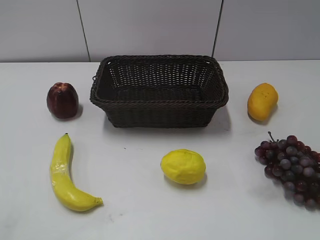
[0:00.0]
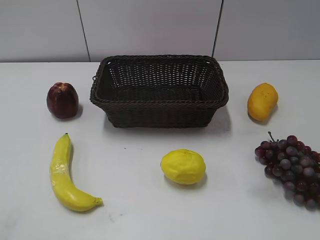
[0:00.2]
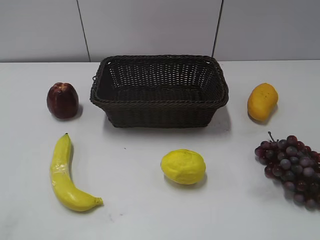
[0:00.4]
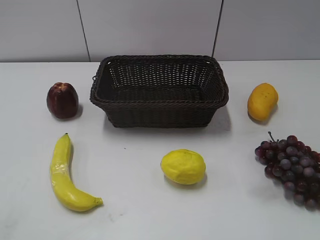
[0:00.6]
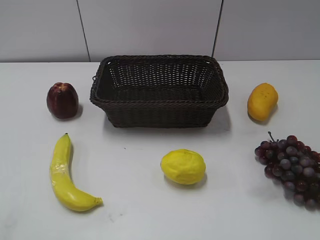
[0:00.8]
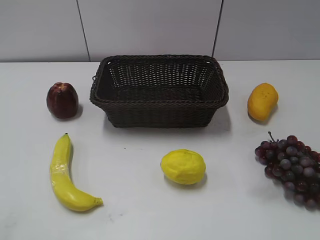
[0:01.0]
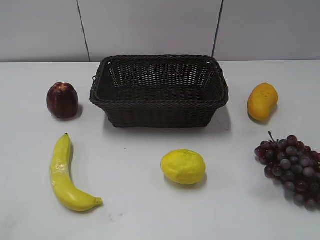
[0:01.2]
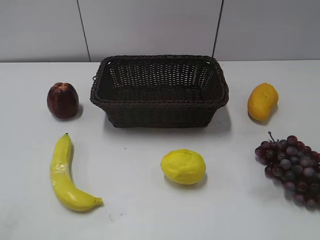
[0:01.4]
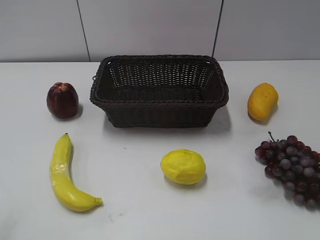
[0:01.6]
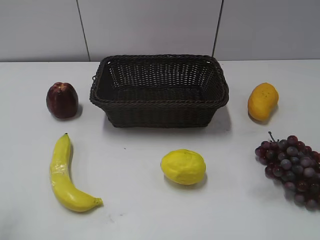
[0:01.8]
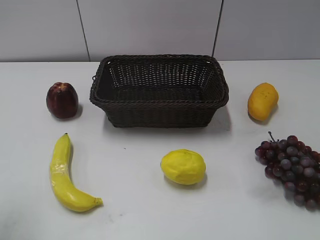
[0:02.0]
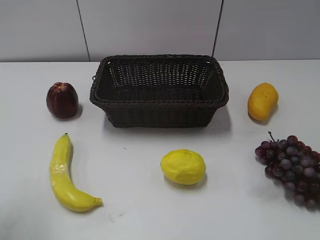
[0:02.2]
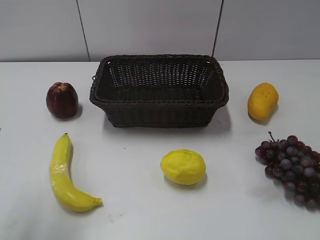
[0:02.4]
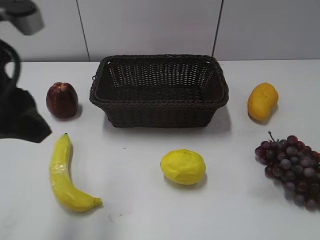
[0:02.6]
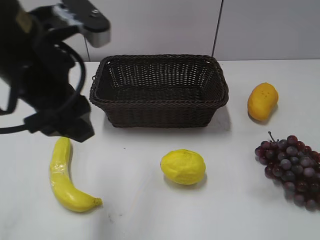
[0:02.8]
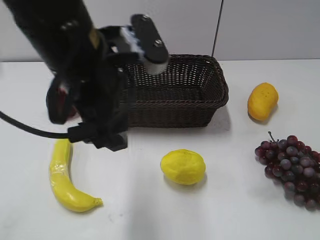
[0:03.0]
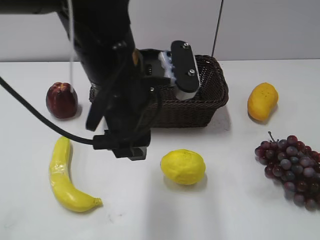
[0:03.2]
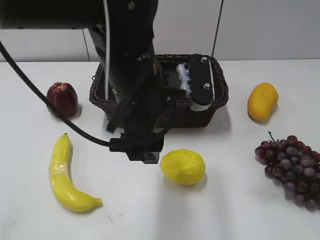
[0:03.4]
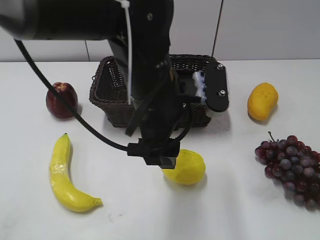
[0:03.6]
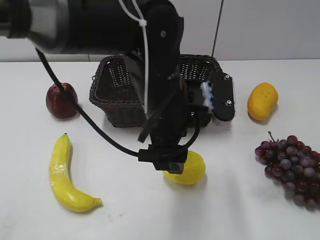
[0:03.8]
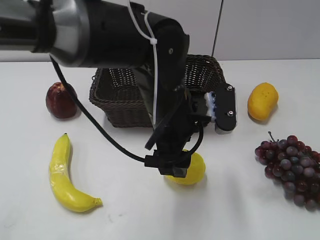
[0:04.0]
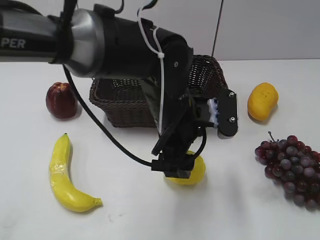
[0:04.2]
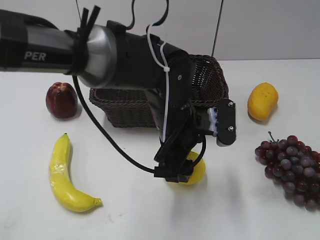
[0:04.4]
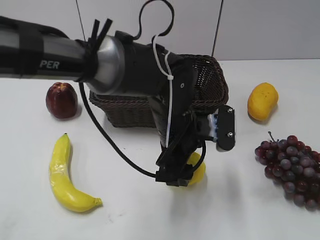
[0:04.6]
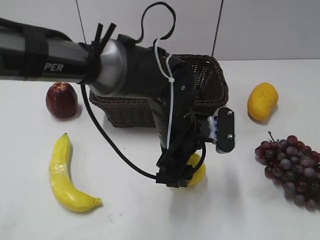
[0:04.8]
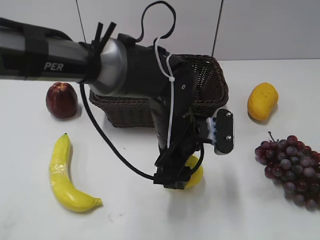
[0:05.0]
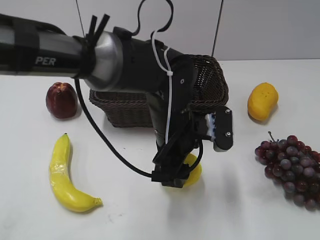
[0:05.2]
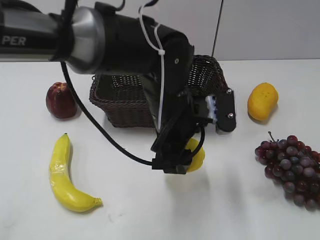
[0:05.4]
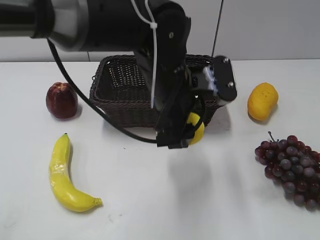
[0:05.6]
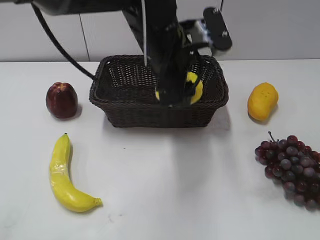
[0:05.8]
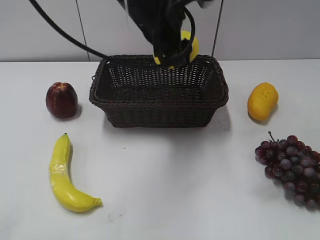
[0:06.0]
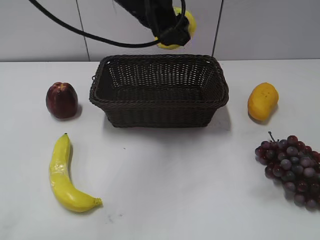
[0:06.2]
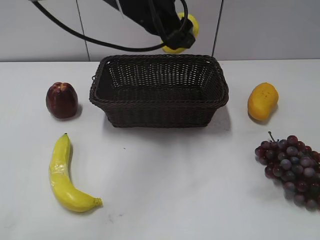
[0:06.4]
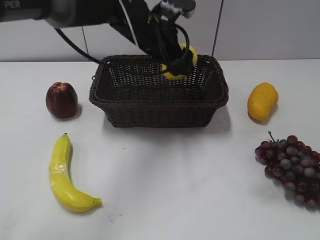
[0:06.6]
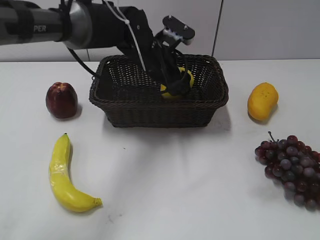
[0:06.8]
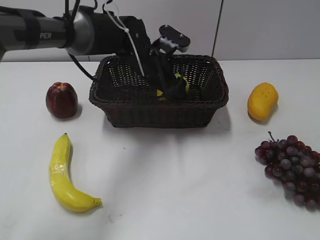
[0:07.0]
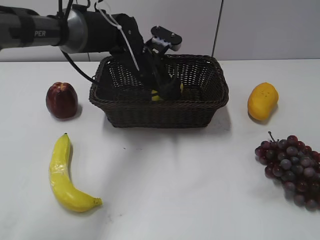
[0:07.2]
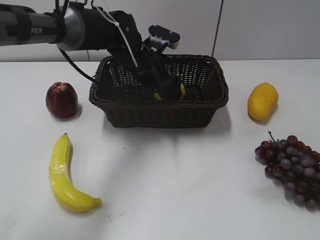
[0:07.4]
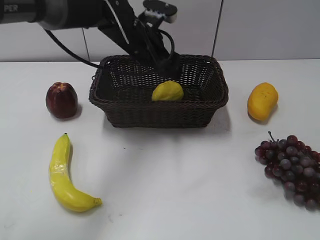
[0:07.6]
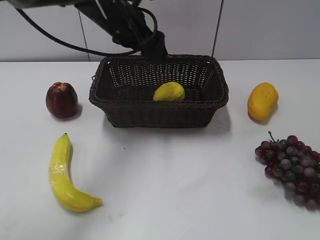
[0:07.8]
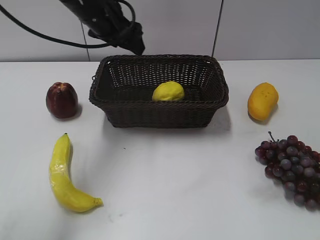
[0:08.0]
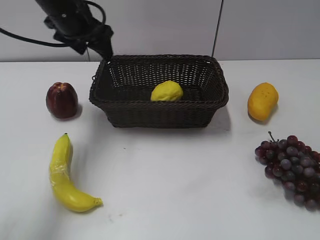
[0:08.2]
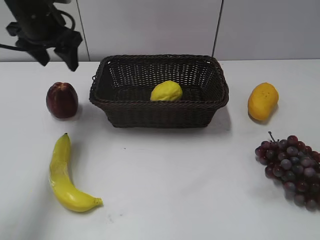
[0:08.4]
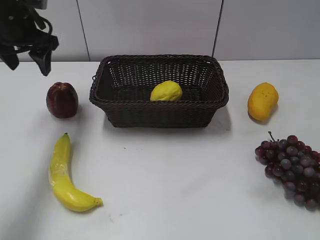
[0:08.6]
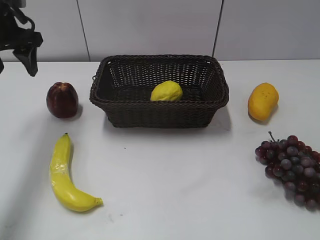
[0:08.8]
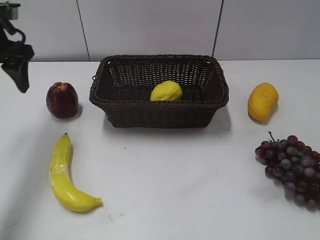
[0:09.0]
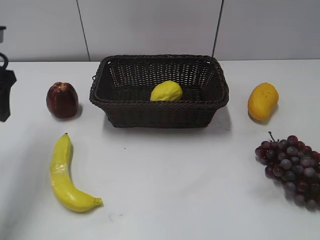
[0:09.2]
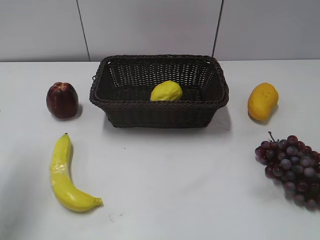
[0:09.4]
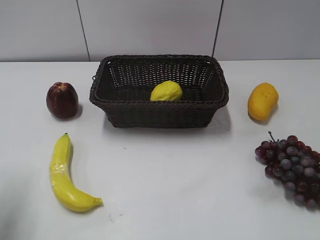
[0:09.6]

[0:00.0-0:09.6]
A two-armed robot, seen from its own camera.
Step, 0:02.4 to 0:05.2: Grasp the lemon with left gripper.
Step, 0:05.4 to 0:07.4: Place the lemon in the basket with left gripper.
0:01.6 to 0:03.2: The left gripper shifts about 30 cm to the right and forward.
0:03.2 to 0:04.8: The left gripper heads downward and to the right, covering roughly 15 cm.
0:04.8 to 0:06.4: The left gripper travels upward and forward by roughly 20 cm.
0:06.4 to 0:08.0: The left gripper is displaced to the left by some 10 cm, and travels downward and back again, some 10 cm each way.
0:08.0 to 0:09.6: The left gripper goes some 30 cm backward and to the left.

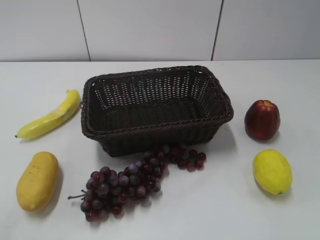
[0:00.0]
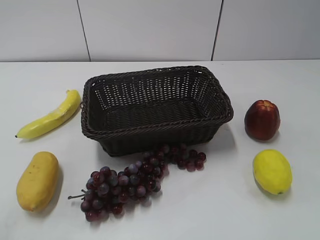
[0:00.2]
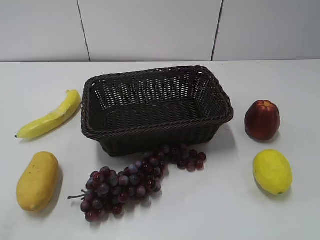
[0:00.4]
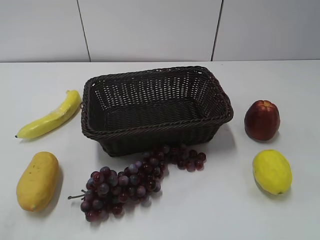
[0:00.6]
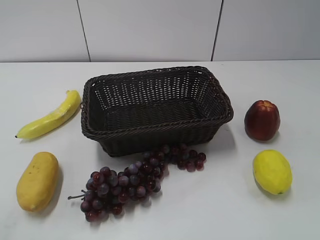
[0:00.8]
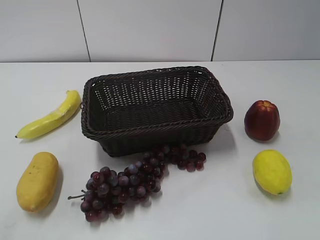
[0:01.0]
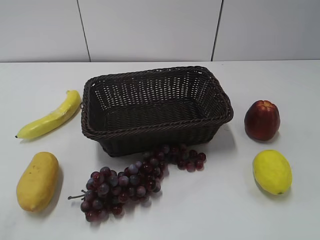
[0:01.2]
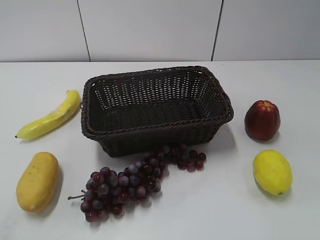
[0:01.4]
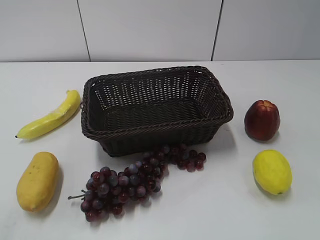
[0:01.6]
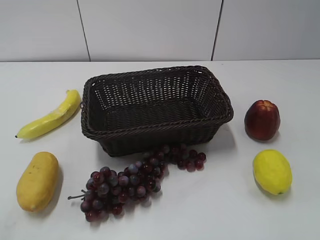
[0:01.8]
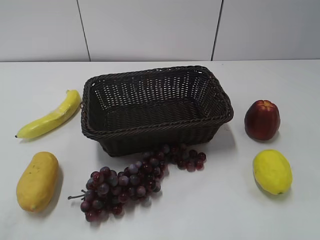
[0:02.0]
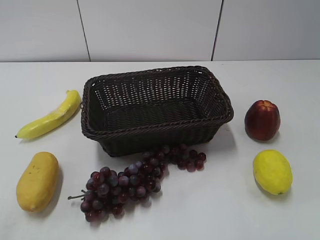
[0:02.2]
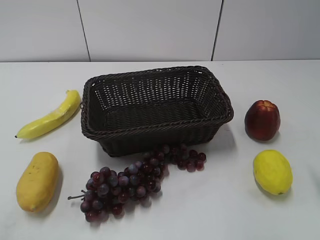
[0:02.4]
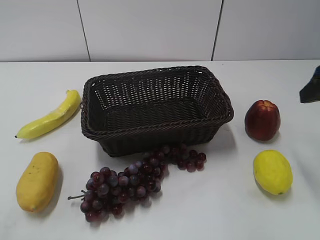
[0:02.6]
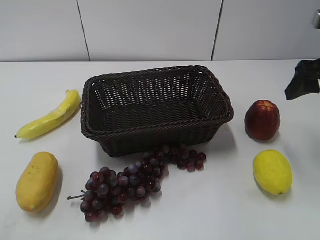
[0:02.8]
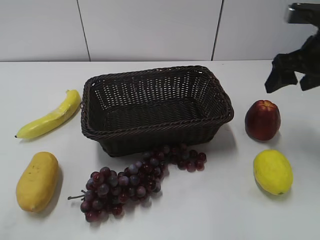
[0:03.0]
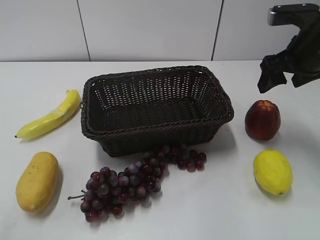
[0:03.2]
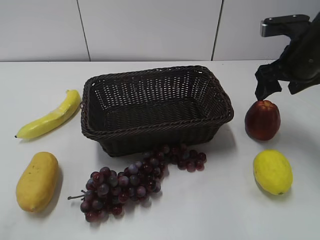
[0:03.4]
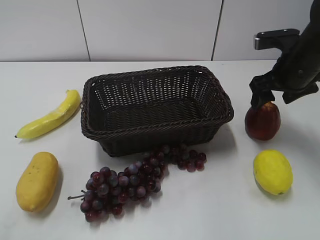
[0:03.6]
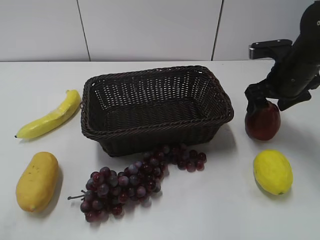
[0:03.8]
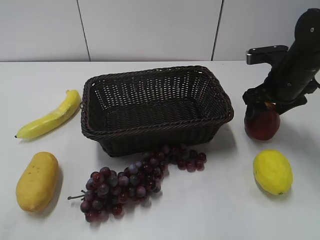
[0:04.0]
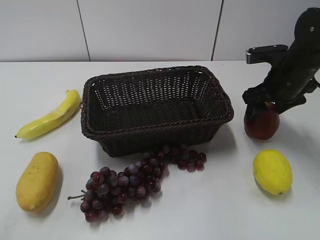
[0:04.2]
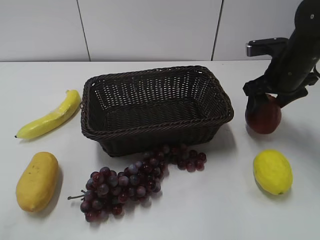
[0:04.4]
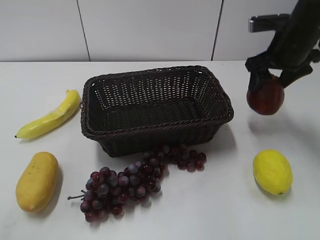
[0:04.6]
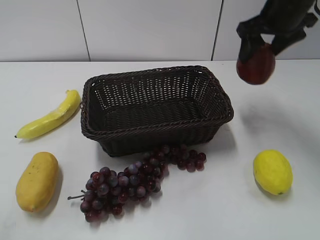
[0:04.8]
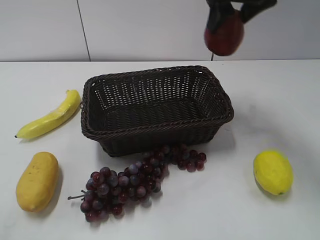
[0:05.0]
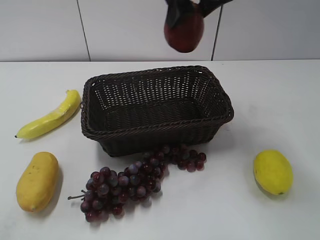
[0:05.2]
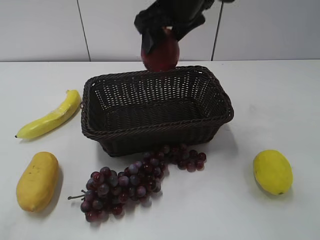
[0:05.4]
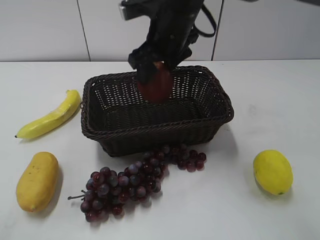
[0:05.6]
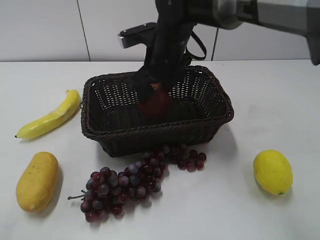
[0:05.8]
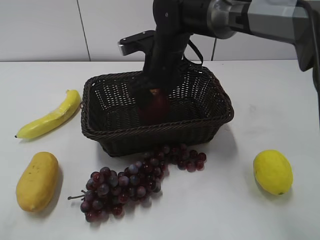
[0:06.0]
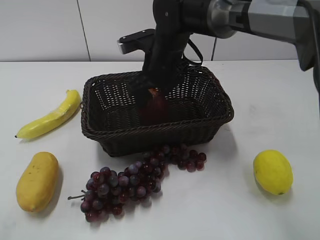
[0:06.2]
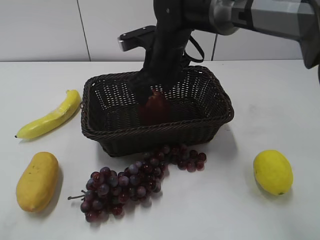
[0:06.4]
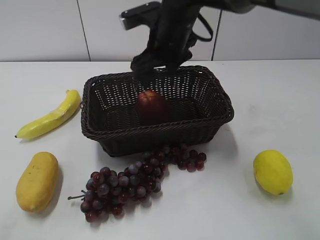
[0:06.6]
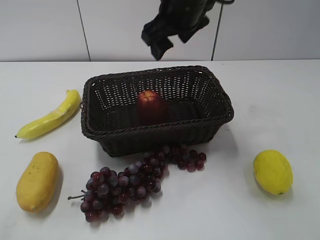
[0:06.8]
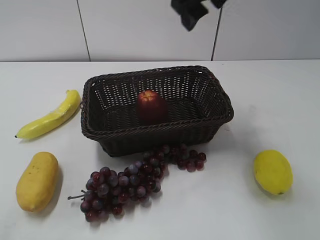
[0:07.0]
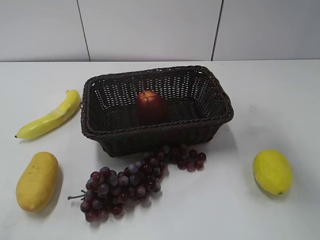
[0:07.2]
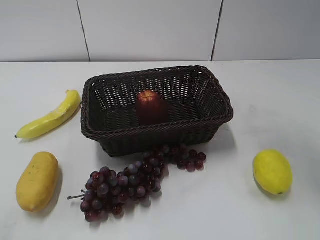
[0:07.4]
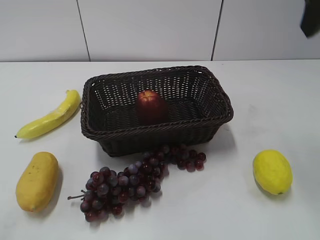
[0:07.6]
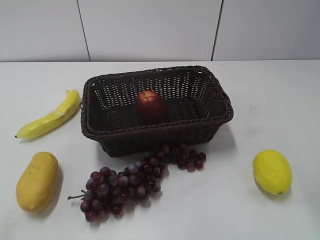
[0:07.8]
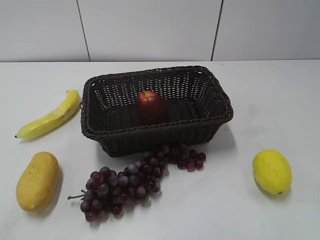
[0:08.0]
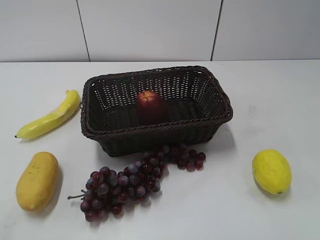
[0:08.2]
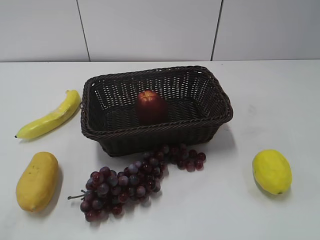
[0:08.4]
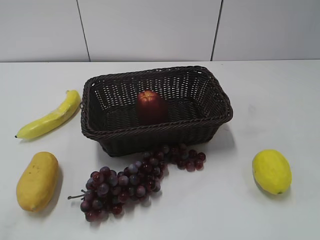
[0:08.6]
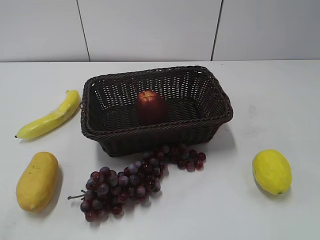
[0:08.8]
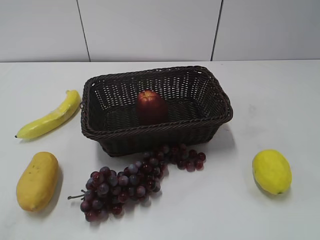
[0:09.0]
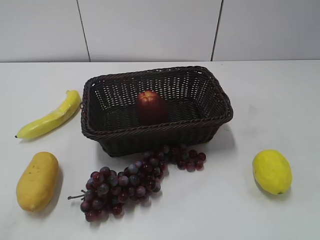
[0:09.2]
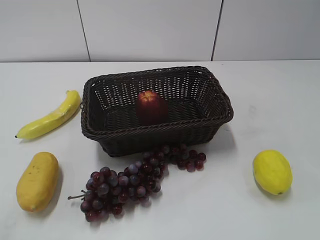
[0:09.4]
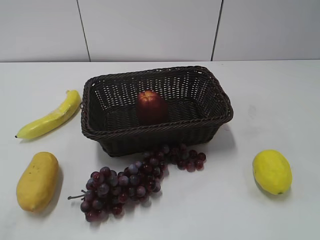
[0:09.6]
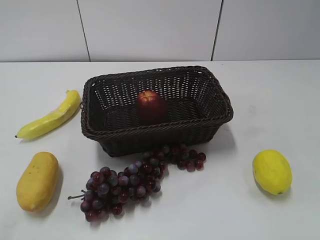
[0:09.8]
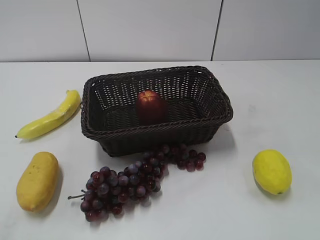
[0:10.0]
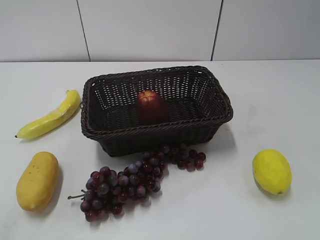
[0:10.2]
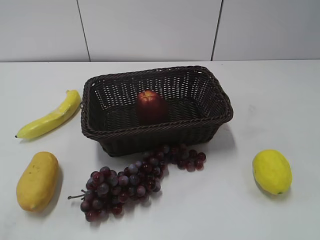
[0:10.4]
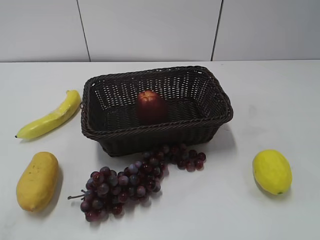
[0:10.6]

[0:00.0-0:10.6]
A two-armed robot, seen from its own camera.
Step, 0:02.6 to 0:04.0: Grasp the apple with right gripper.
Step, 0:04.2 to 0:06.2: Place the apple in the basket with right gripper.
0:01.6 to 0:03.0: The right gripper shifts roughly 35 cm forward.
0:03.0 to 0:04.6: The right gripper goes approximately 5 cm forward, travels downward and back again, some 10 cm each way, and closes.
0:04.6 to 0:06.0: The right gripper travels to the left by approximately 20 cm.
0:06.0 to 0:07.6: The right gripper moves to the right, upward and backward, approximately 30 cm.
0:07.6 to 0:09.0: The right gripper heads backward, covering some 30 cm.
